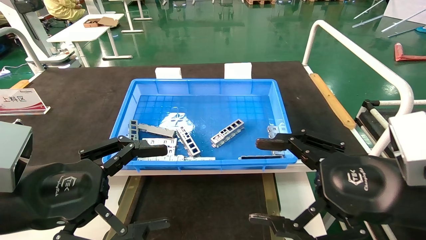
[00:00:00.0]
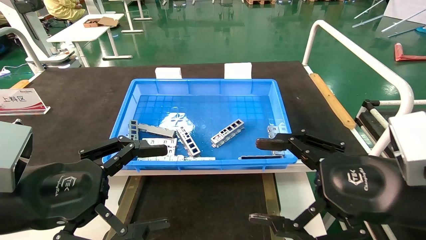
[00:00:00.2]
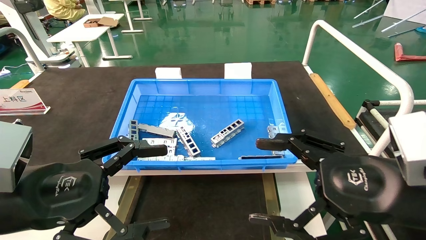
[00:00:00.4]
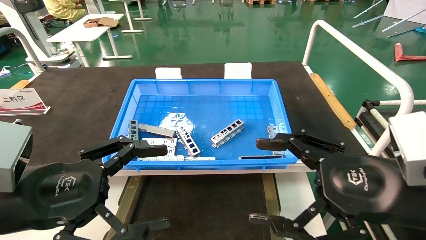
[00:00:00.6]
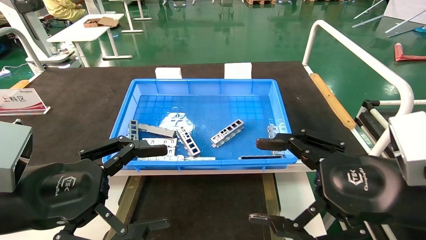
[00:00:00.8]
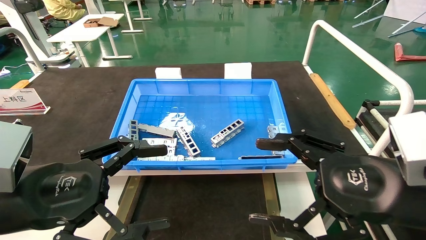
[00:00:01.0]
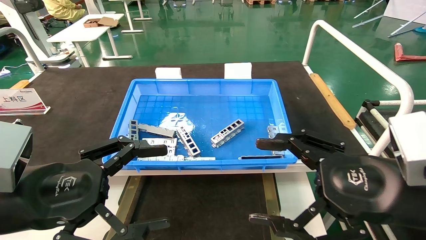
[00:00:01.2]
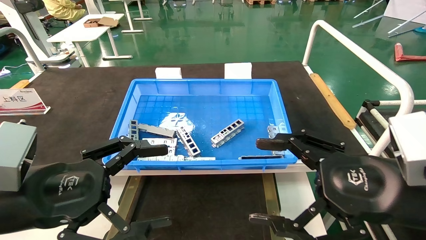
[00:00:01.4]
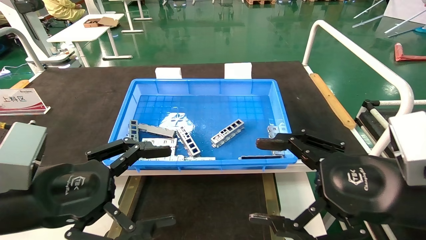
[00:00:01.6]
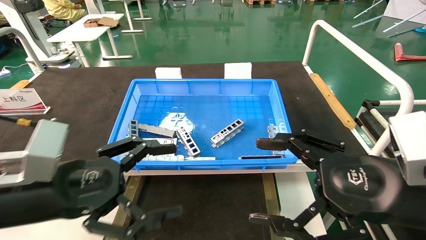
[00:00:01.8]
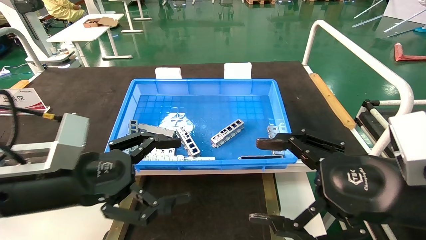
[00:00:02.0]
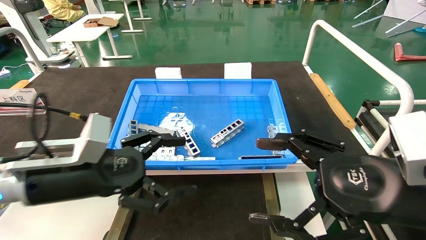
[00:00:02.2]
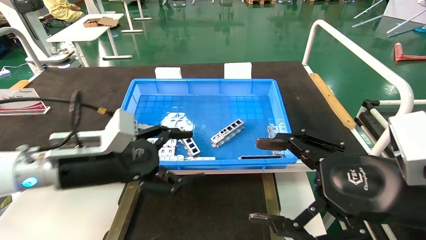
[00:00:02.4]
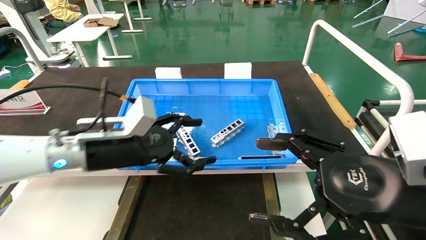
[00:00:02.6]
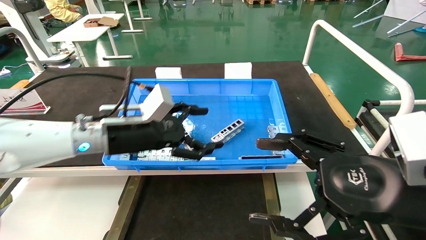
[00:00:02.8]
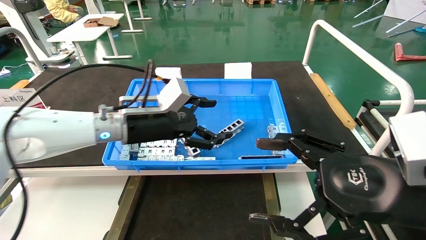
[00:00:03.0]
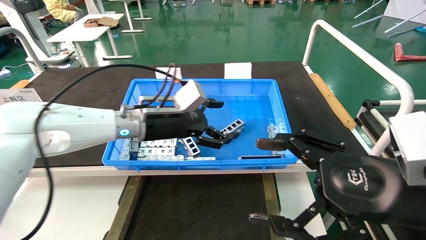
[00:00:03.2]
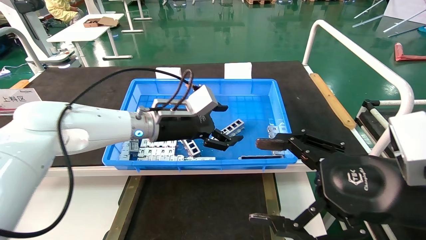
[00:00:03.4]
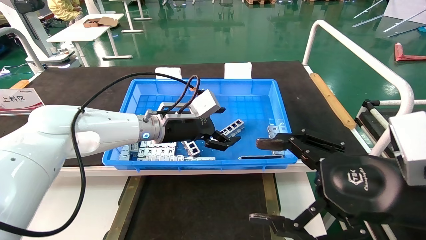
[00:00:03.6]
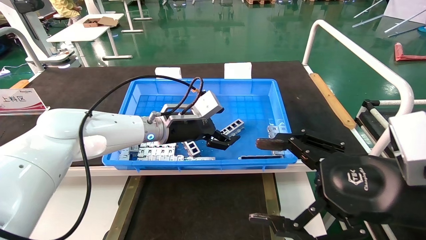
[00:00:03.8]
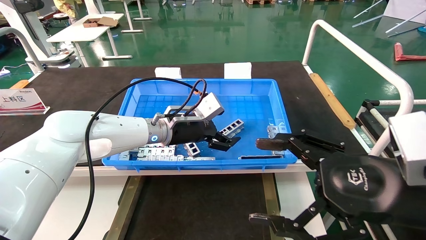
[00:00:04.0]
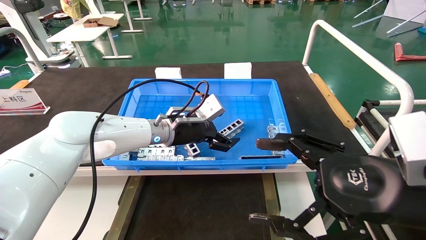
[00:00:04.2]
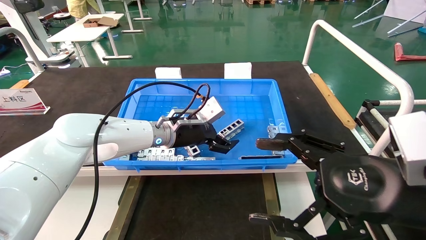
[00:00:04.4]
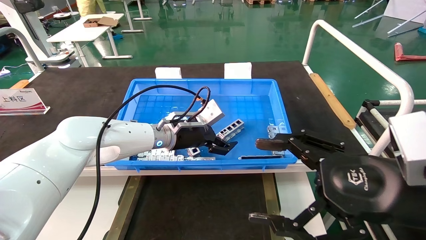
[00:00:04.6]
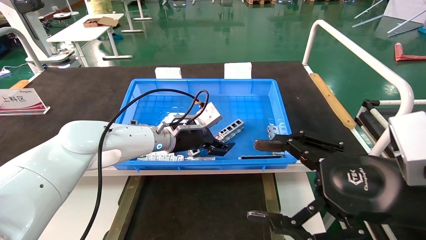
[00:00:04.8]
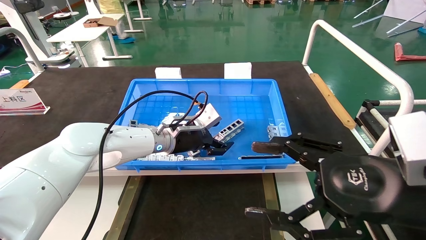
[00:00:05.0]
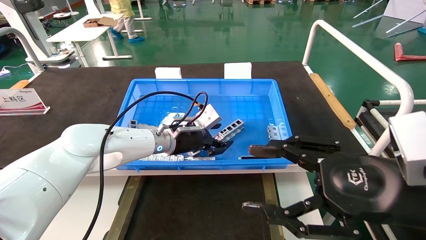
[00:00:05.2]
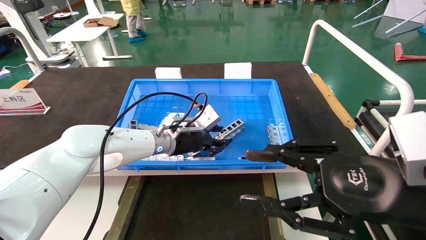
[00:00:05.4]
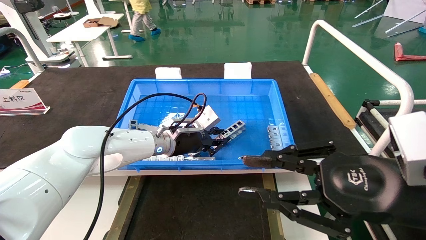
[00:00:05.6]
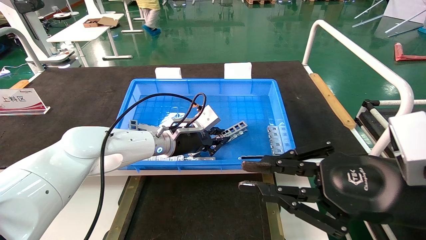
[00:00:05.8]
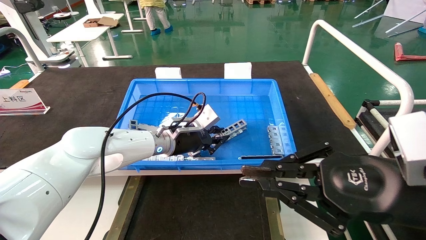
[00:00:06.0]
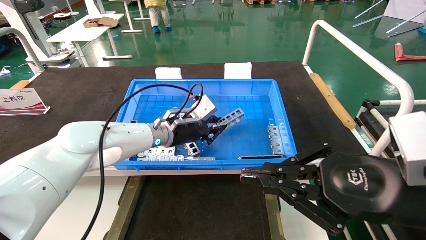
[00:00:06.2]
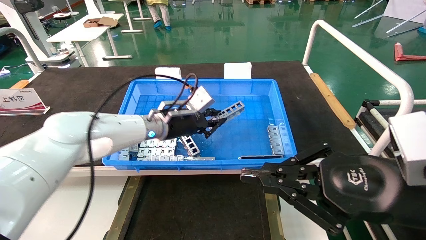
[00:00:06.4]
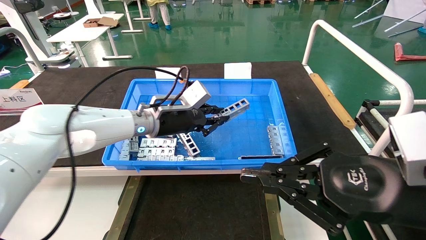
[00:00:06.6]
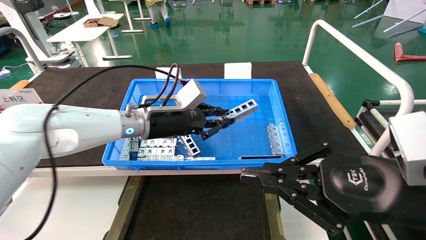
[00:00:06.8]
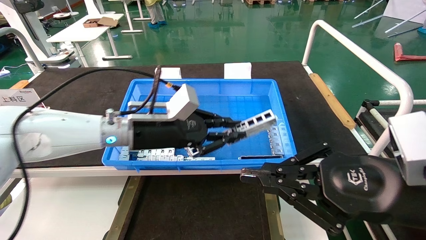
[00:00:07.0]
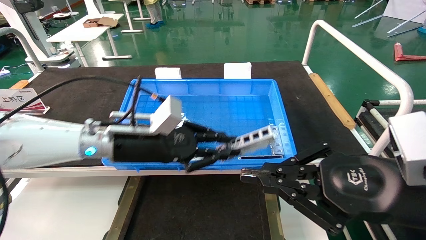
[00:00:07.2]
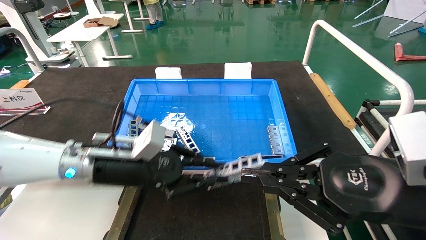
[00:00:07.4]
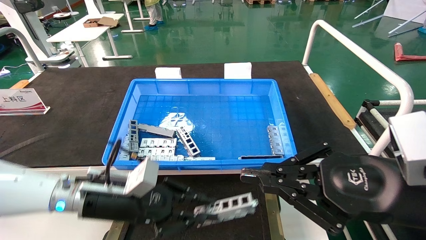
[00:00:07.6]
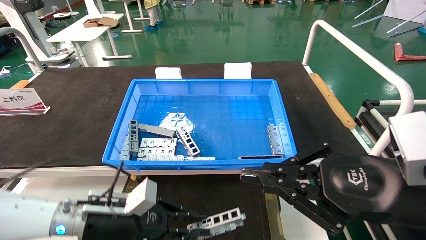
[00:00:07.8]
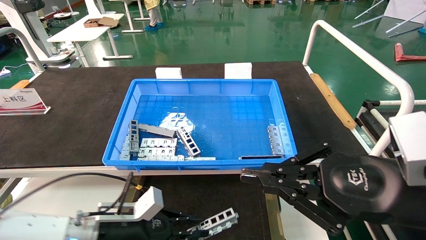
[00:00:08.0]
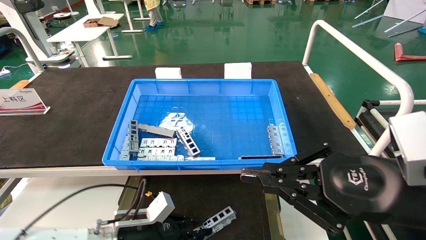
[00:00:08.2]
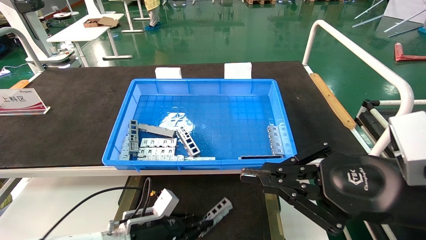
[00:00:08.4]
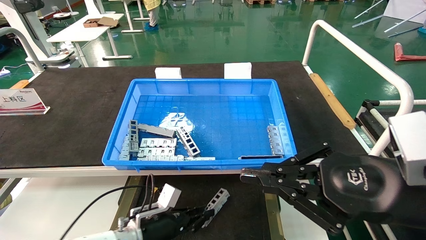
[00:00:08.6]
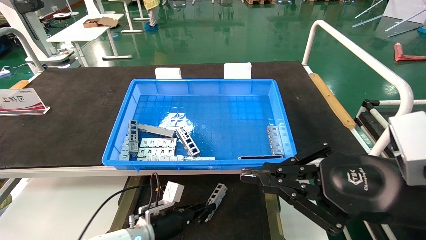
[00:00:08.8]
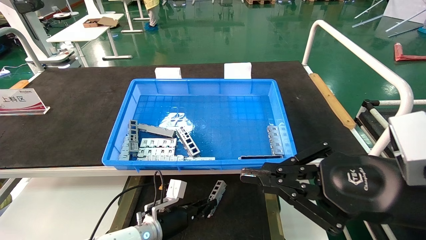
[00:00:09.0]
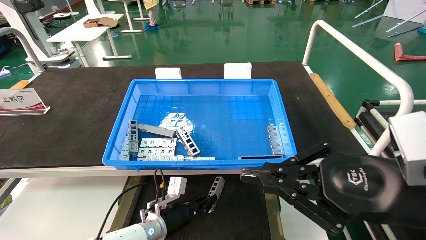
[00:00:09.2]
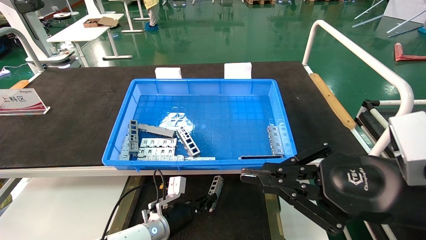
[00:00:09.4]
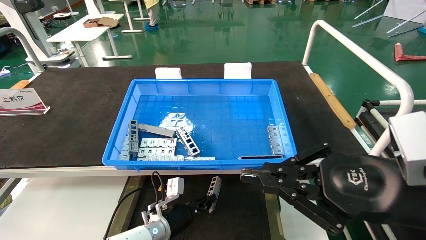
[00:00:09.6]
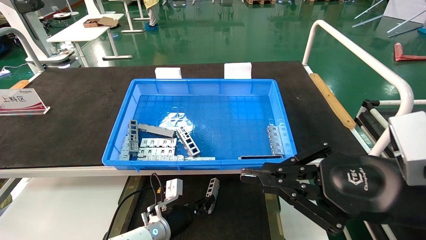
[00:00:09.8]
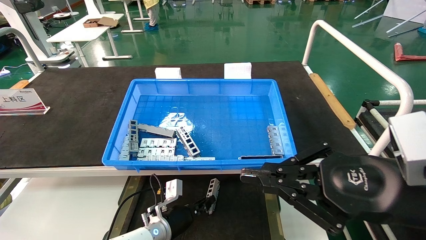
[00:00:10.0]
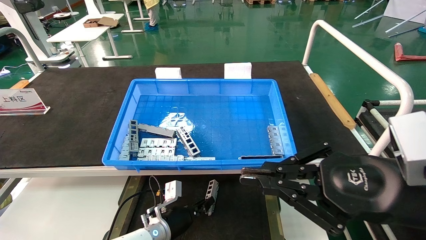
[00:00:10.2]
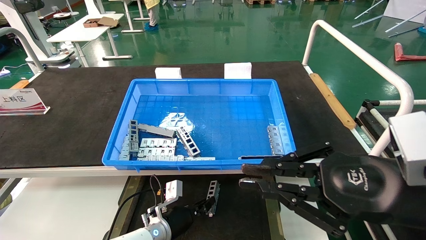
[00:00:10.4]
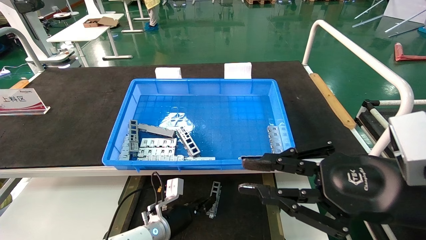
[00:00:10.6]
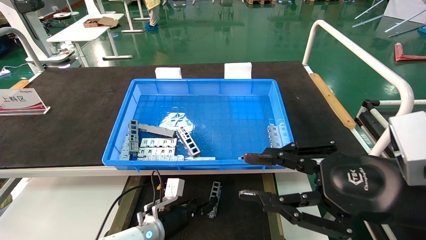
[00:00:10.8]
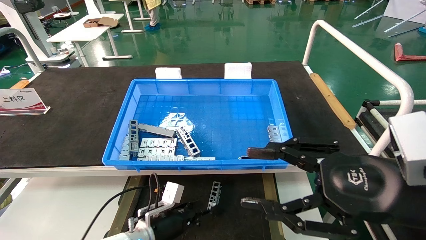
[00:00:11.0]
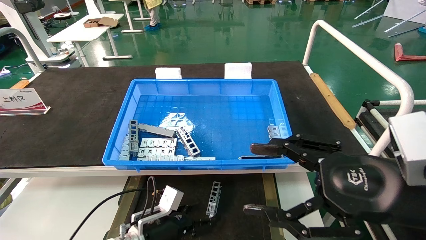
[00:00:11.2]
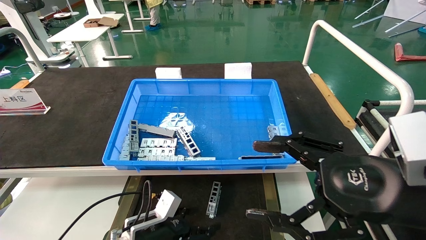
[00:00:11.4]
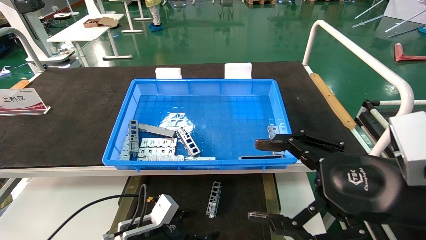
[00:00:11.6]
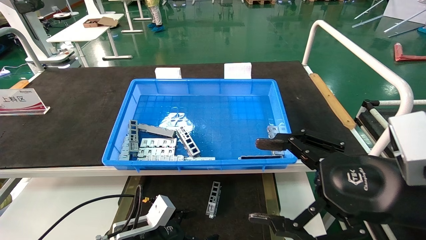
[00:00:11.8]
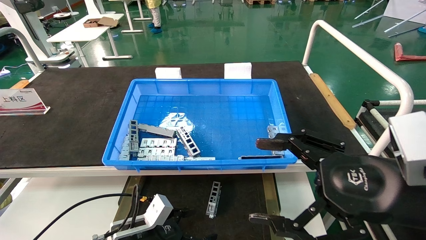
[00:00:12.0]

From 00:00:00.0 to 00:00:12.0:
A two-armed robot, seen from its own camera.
Task of the whole recording: Grasp the part with one hand and place it on the black container.
Step, from 00:00:01.8 to 00:00:06.6: Pick up the front USB bracket from the feeding area.
Step, from 00:00:06.8 to 00:00:10.6: Place the front USB bracket into the box.
From 00:00:00.0 to 00:00:01.6: Both grippers stay put.
From 00:00:01.6 to 00:00:03.0: The left gripper heads forward and to the right, covering some 20 cm.
From 00:00:03.0 to 00:00:04.4: The left gripper travels forward and to the right by some 10 cm.
From 00:00:04.4 to 00:00:06.0: The left gripper closes its fingers; the right gripper closes its fingers.
From 00:00:06.0 to 00:00:07.6: The left gripper heads backward and to the left, covering approximately 20 cm.
From 00:00:07.6 to 00:00:09.0: The left gripper moves downward, forward and to the right, roughly 20 cm.
From 00:00:09.0 to 00:00:10.4: The grippers stay close to where they were, moving slightly.
From 00:00:10.4 to 00:00:12.0: The right gripper opens, while the left gripper moves backward and to the left, about 10 cm, and opens.
